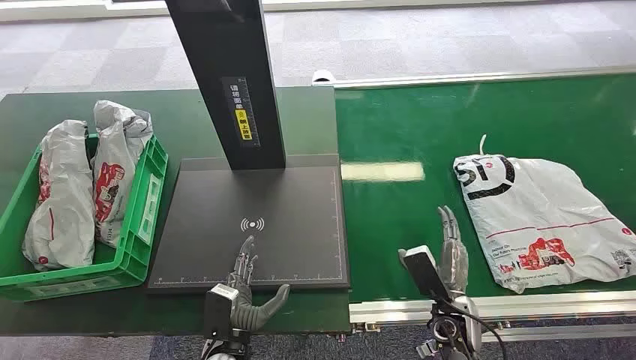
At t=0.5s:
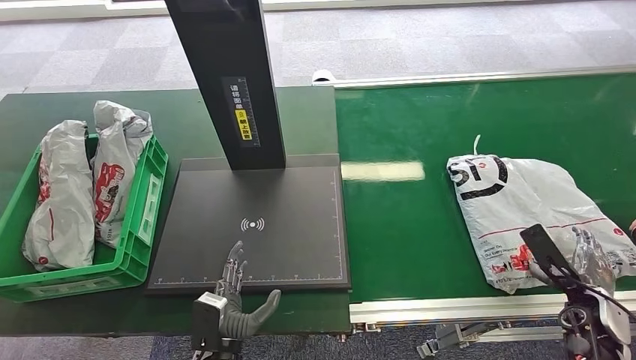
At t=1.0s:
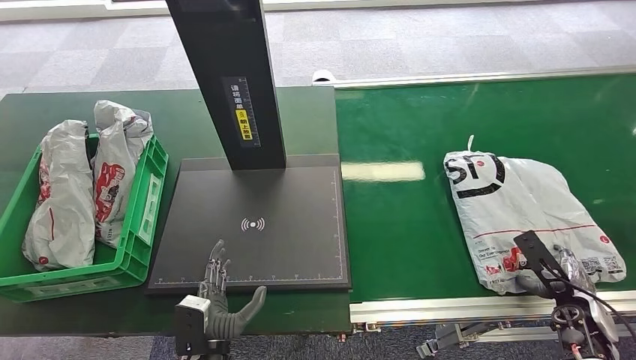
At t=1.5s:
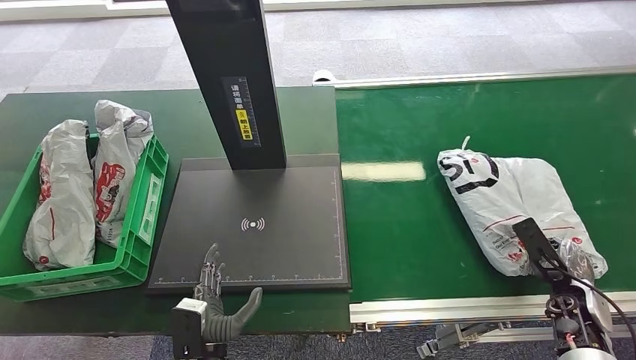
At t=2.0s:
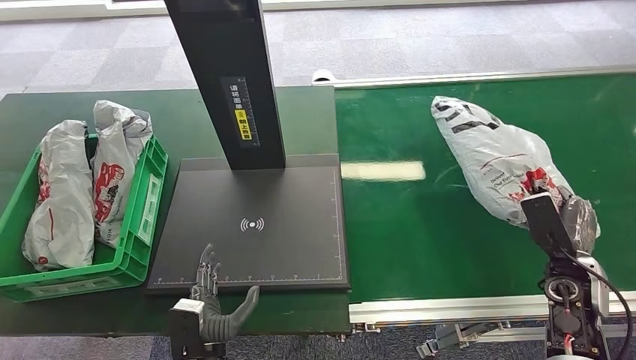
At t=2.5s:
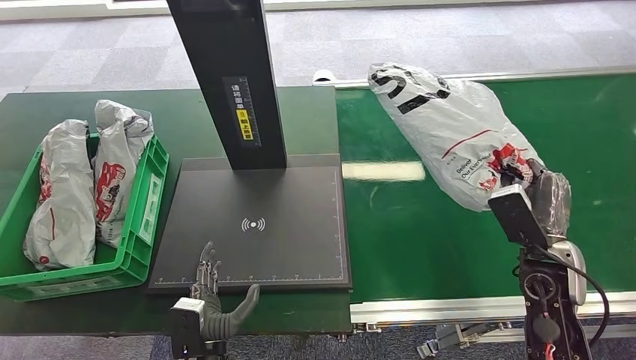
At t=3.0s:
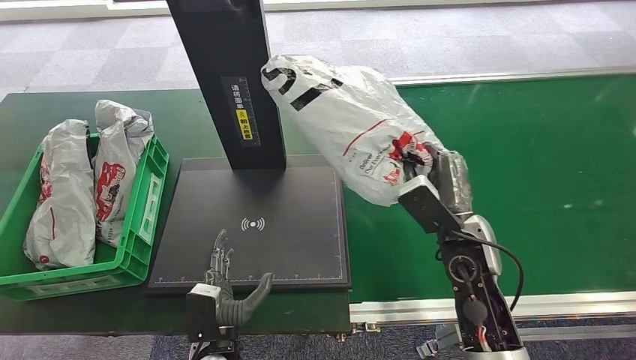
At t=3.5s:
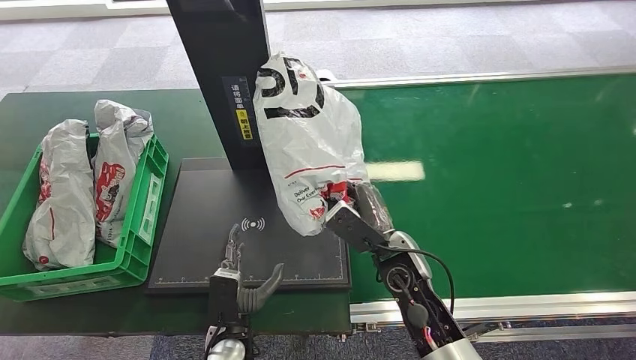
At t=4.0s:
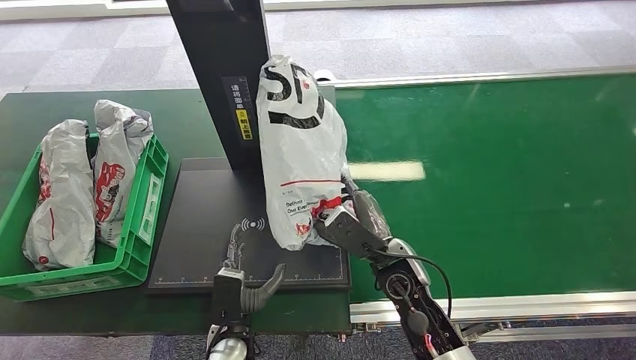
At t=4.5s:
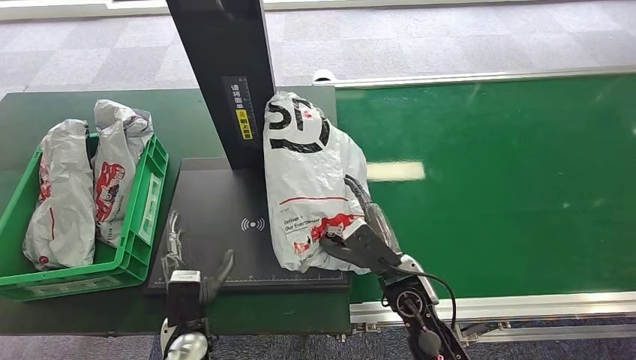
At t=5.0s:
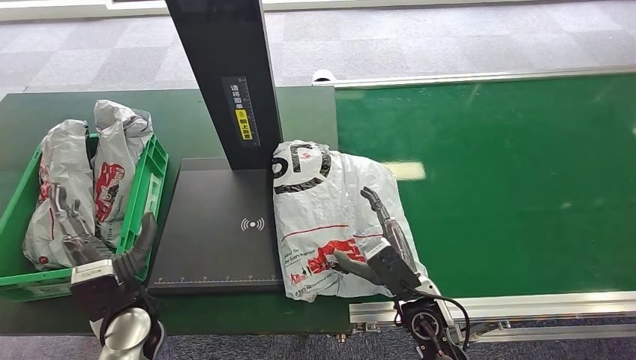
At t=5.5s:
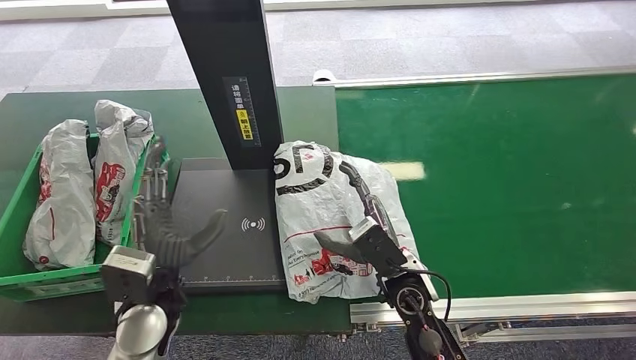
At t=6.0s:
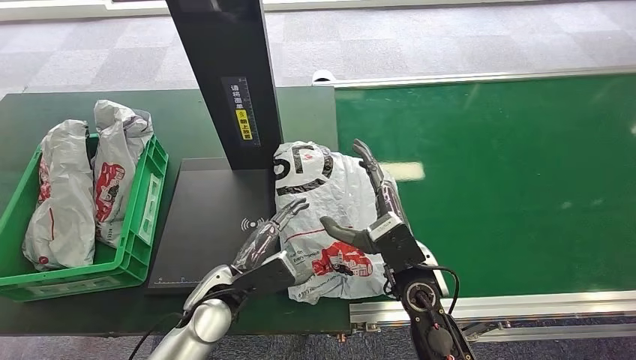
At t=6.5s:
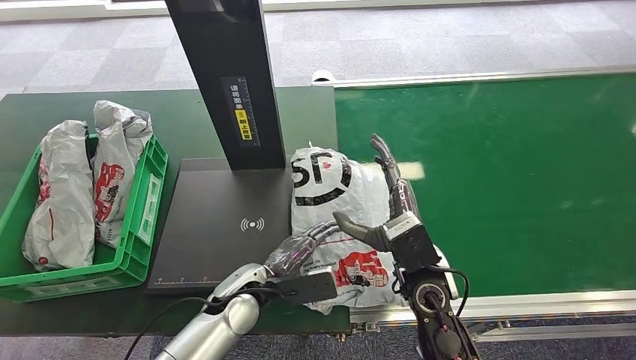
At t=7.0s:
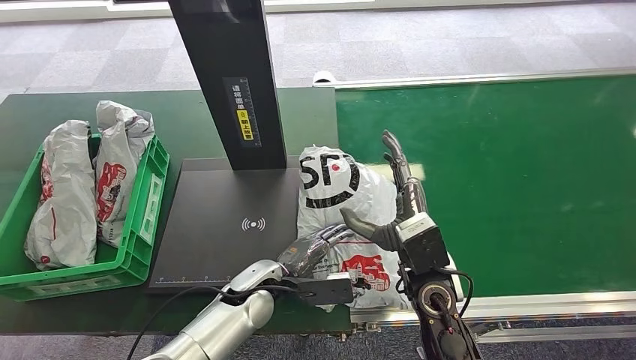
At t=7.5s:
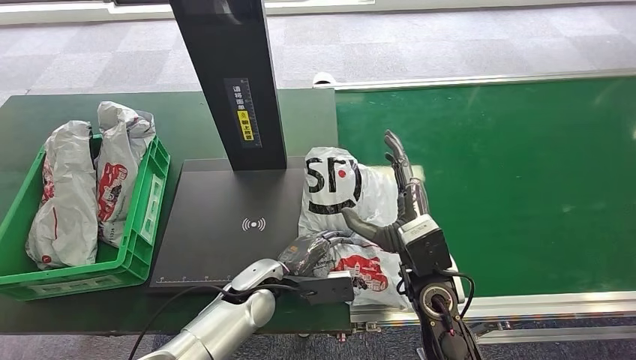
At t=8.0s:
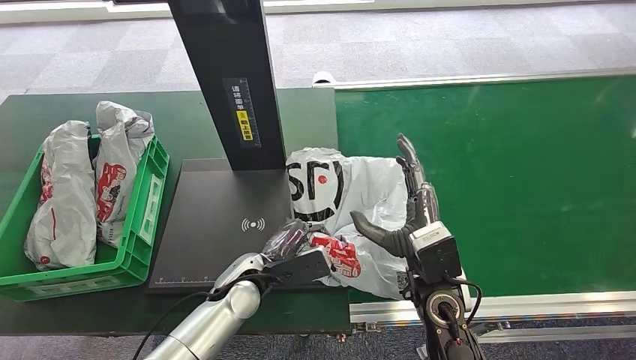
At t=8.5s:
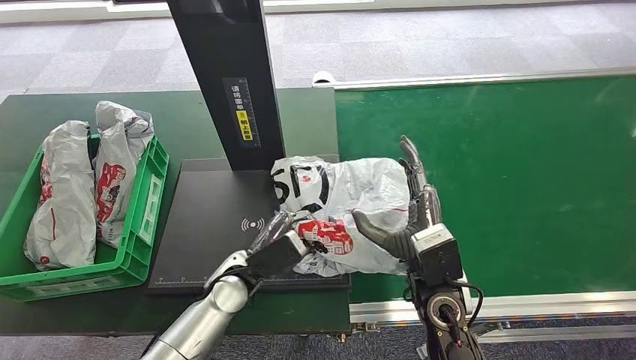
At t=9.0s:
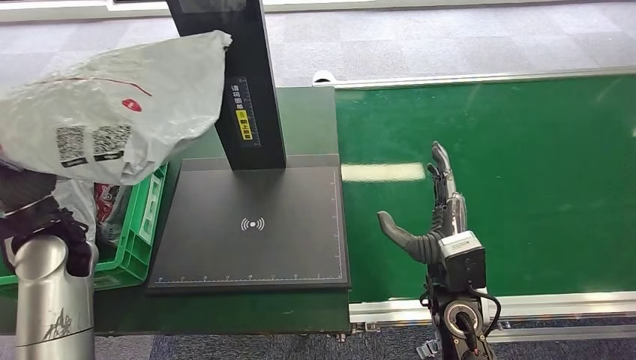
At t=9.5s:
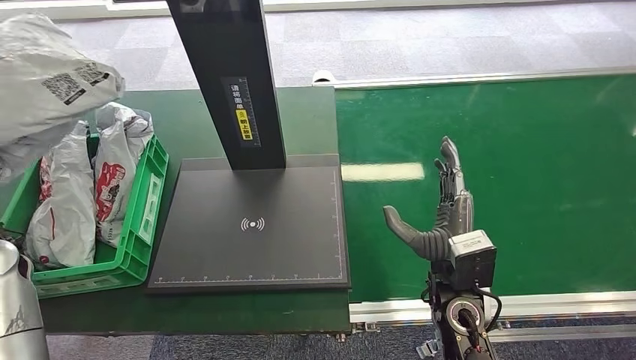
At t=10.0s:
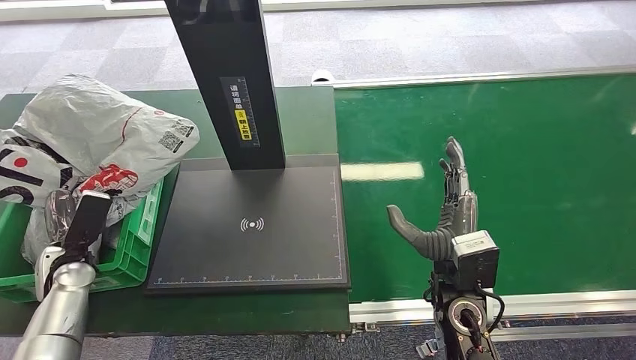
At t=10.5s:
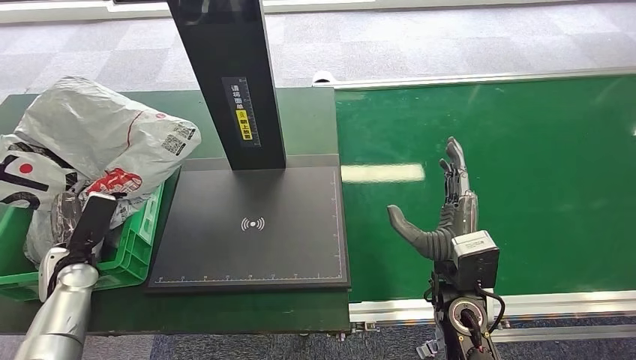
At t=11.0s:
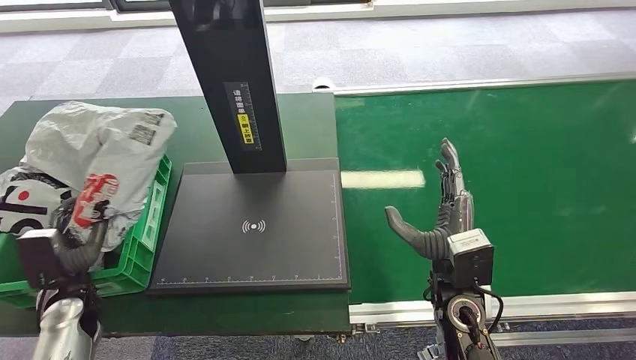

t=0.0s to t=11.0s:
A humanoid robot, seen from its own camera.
Step, t=0.0s to t=2.0s: Pick up the package from the conveyor belt.
Step, t=2.5s to t=5.0s: Place the package onto the inbound machine.
Step, t=5.5s to t=8.5s: Pick up the package from the inbound machine.
Step, t=9.0s to t=11.0s: Place the package into the parcel locker.
t=3.5s to t=5.5s: The left hand moves upward and to the left, about 20 cm.
